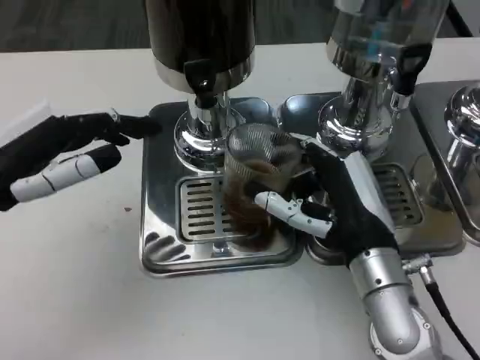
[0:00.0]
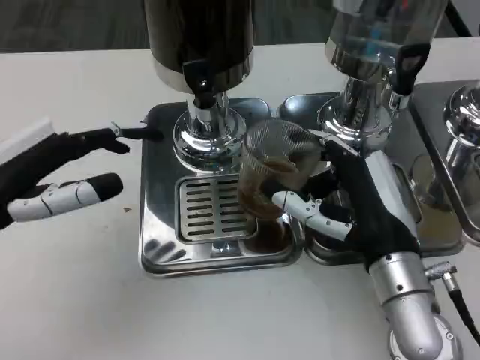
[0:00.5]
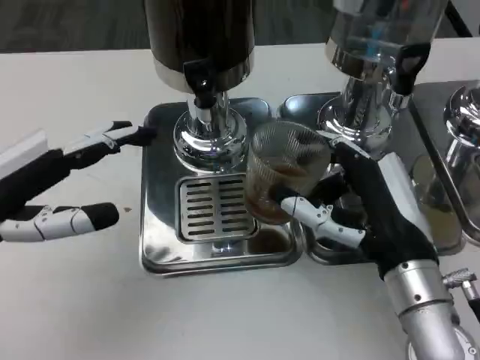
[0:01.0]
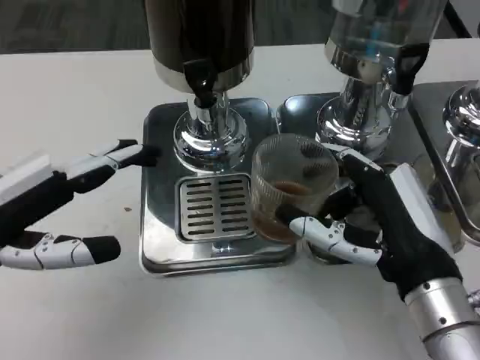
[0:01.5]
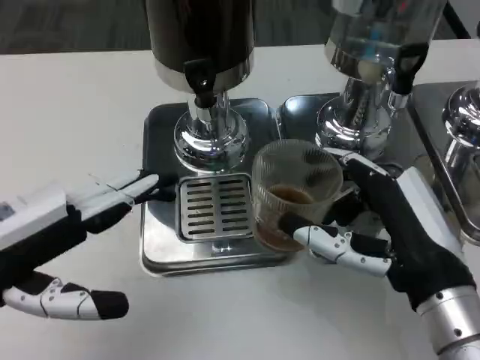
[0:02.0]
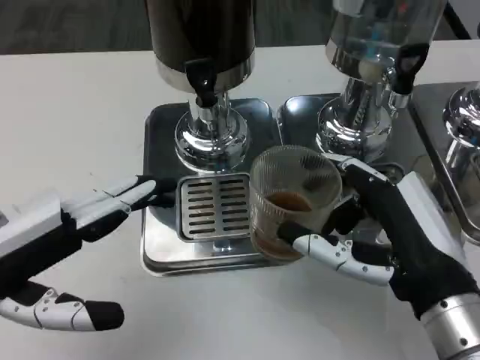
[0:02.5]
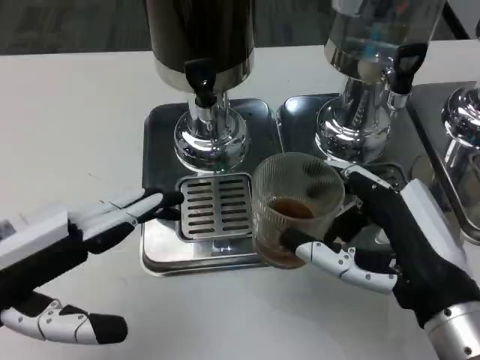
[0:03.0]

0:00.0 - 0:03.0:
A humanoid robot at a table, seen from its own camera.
Task of the whole recording: Grasp the cup under the faucet to collect the drink, then remove the cup.
0:00.0 - 0:01.5: The right hand moves backward, some 5 cm.

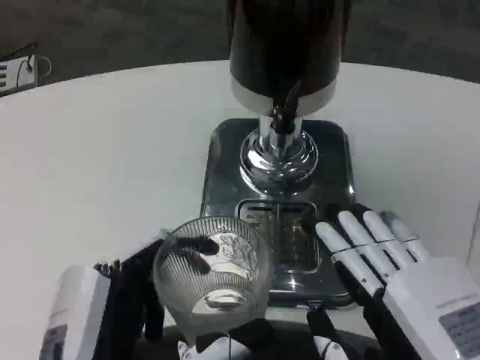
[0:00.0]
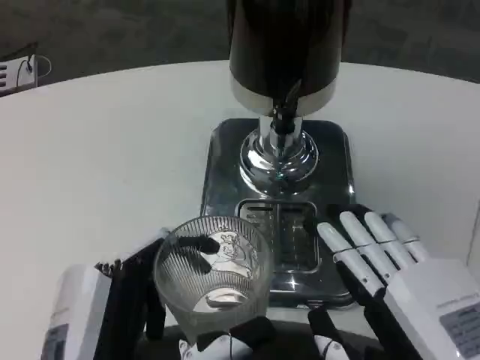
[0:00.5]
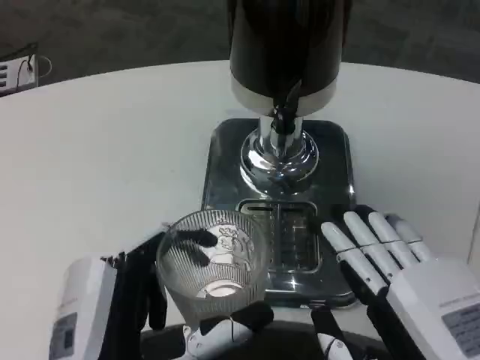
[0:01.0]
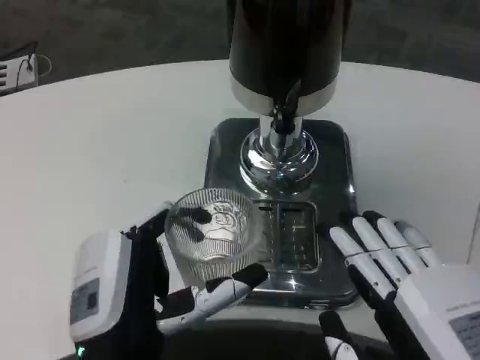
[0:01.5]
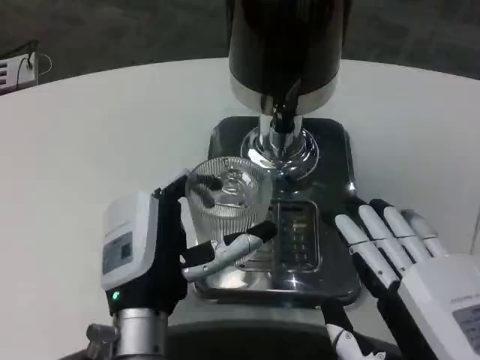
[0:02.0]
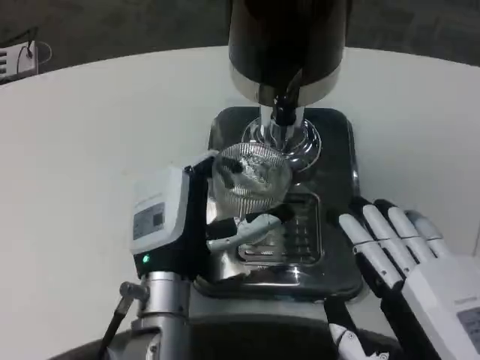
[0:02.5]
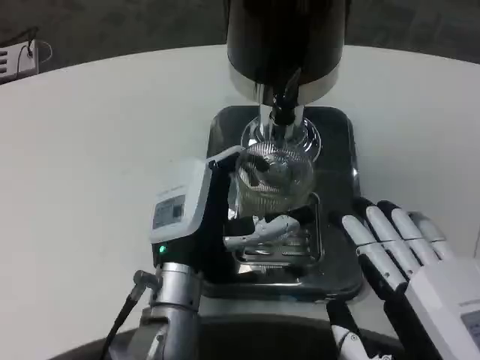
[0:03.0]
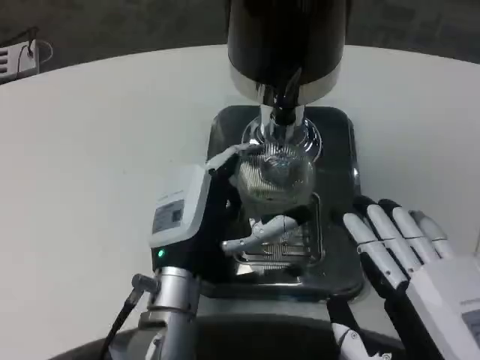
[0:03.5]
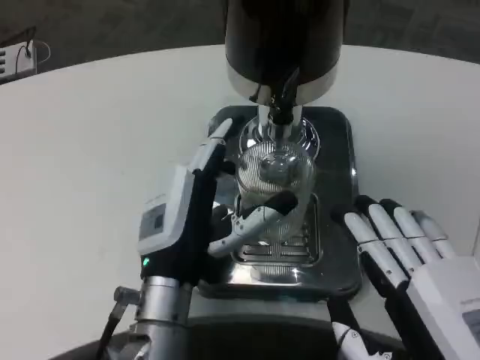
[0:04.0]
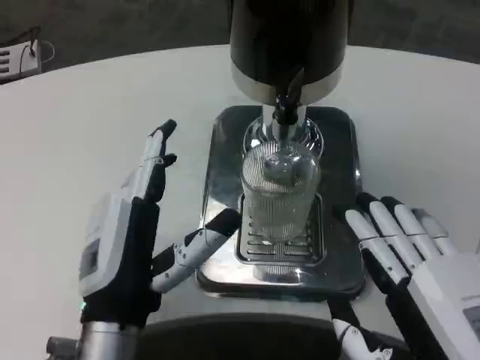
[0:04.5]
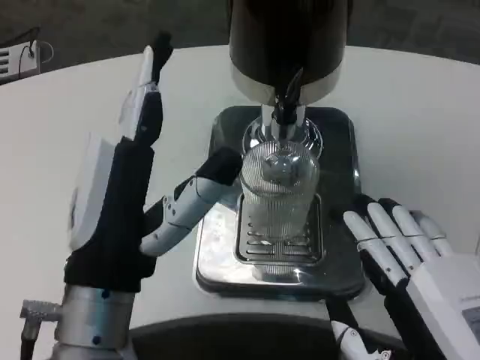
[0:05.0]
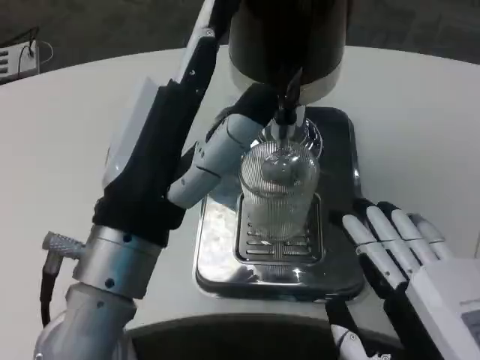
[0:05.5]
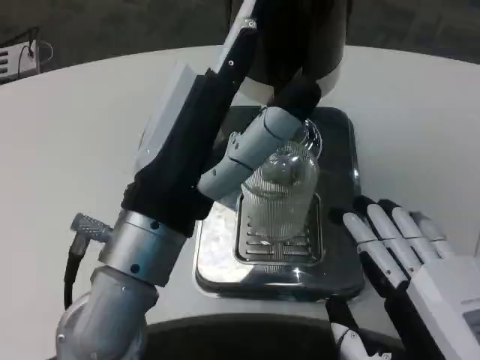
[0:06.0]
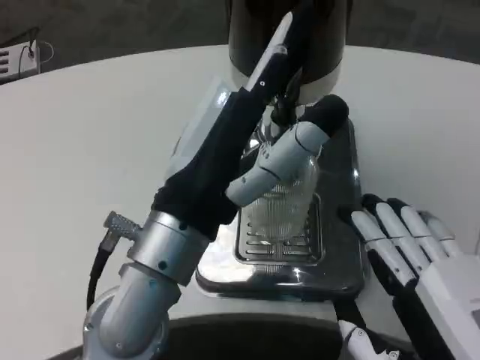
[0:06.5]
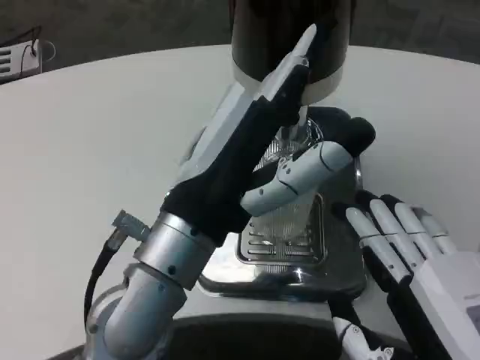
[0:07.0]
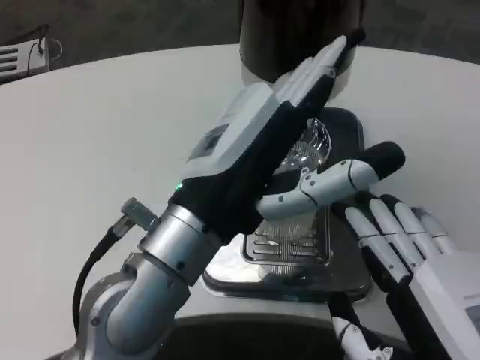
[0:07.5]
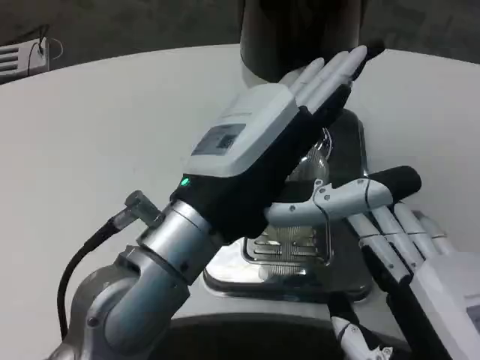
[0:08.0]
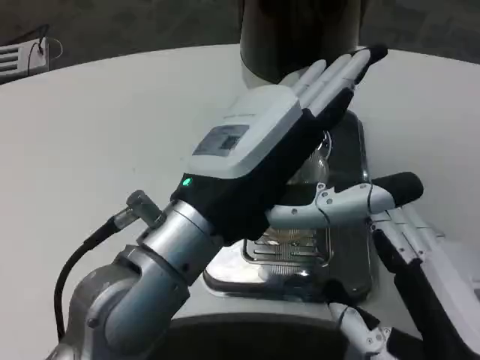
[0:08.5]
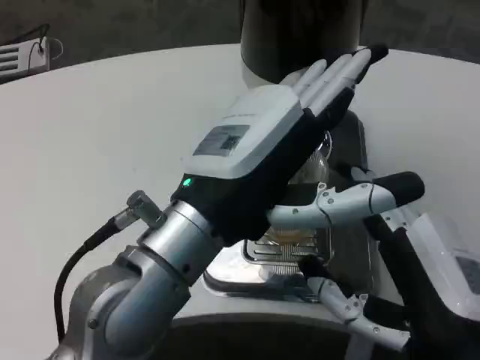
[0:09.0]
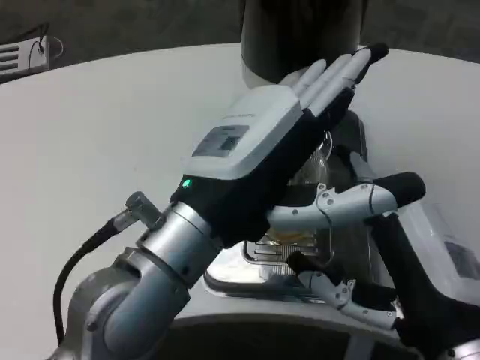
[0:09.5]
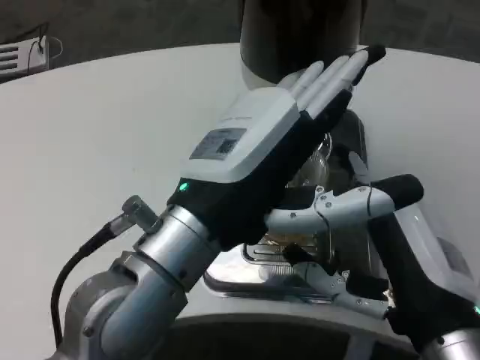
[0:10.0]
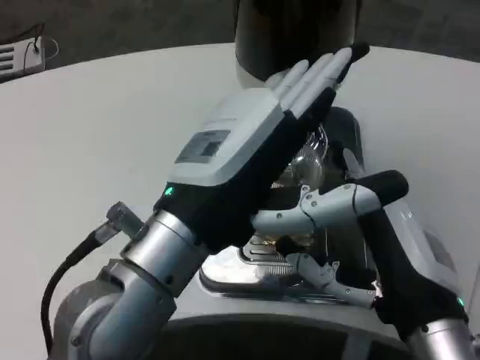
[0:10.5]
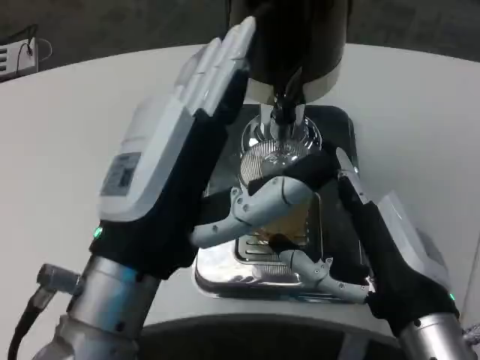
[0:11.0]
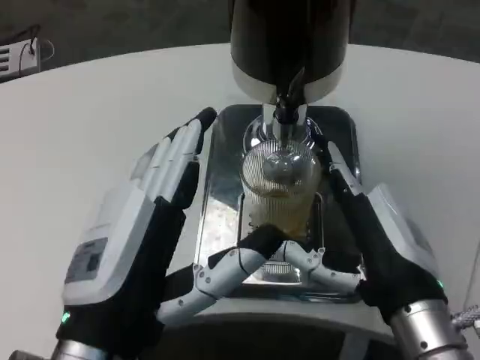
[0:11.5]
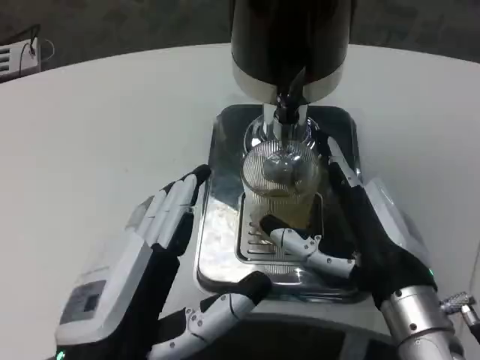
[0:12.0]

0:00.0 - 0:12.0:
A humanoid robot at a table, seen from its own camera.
Task of the whole recording: Grasp the cup under the faucet to collect the drink, then remove the cup.
0:00.0 - 0:02.0: The left hand moves forward, some 10 cm.
0:04.0 - 0:06.0: The left hand is displaced upward and backward by some 15 cm.
0:08.0 - 0:10.0: The right hand shifts some 10 cm forward.
0:10.0 - 0:12.0: The left hand travels downward, backward and to the left by roughly 15 cm. The right hand moves forward, roughly 5 cm.

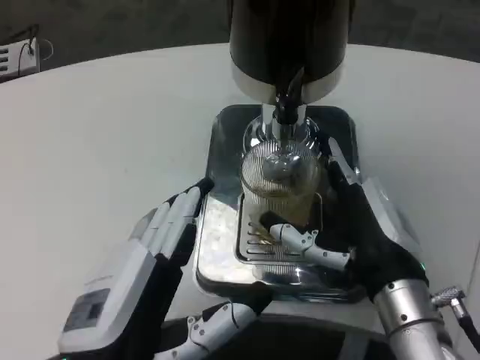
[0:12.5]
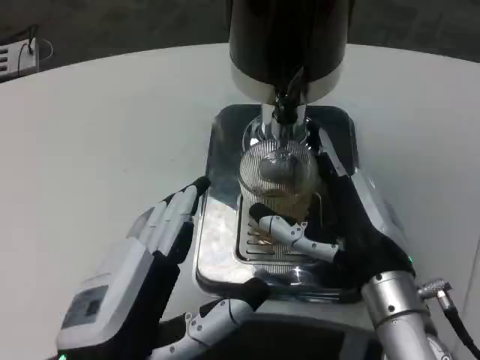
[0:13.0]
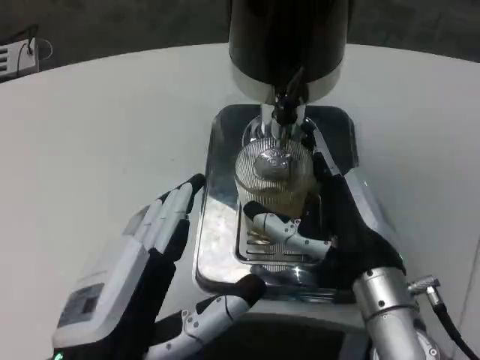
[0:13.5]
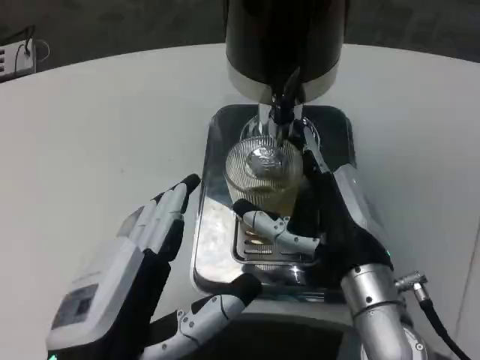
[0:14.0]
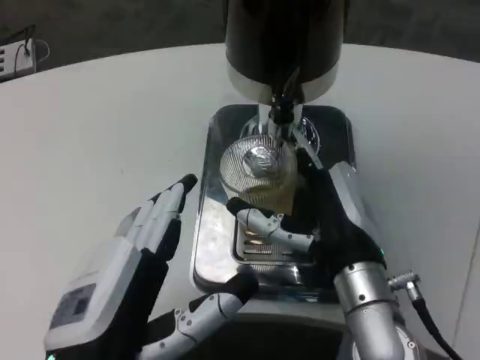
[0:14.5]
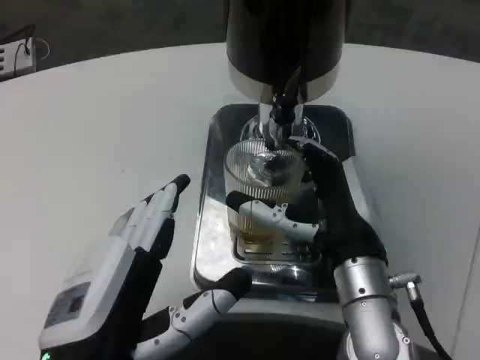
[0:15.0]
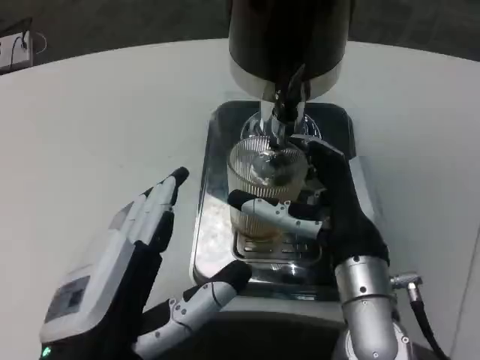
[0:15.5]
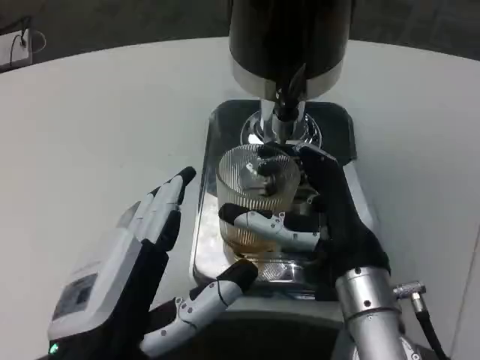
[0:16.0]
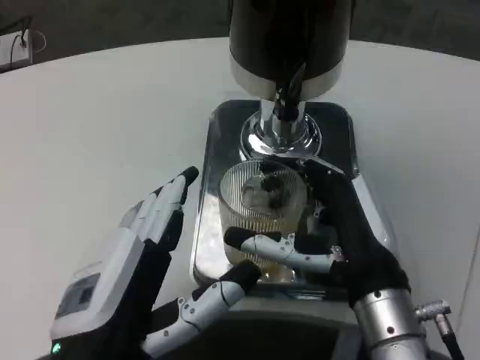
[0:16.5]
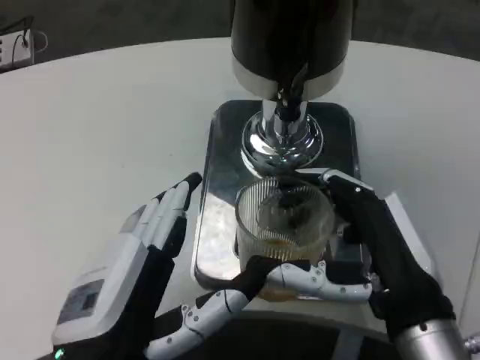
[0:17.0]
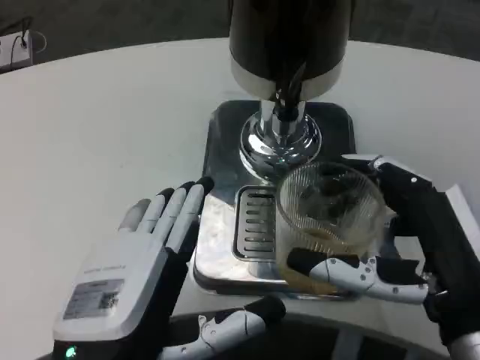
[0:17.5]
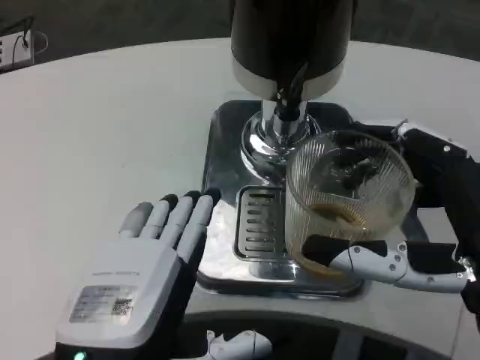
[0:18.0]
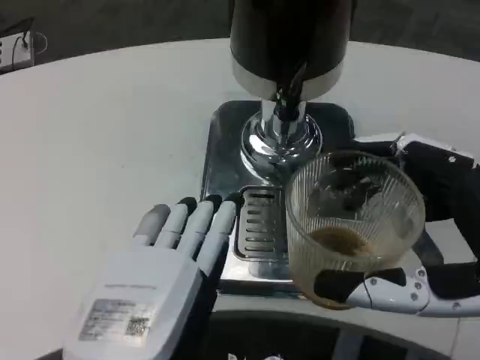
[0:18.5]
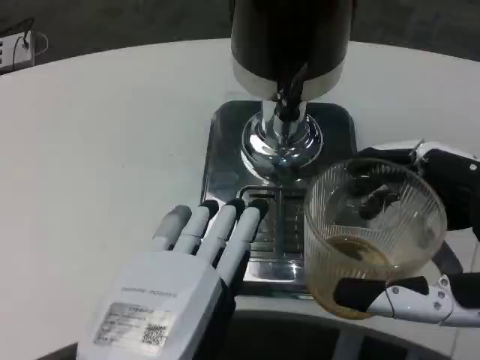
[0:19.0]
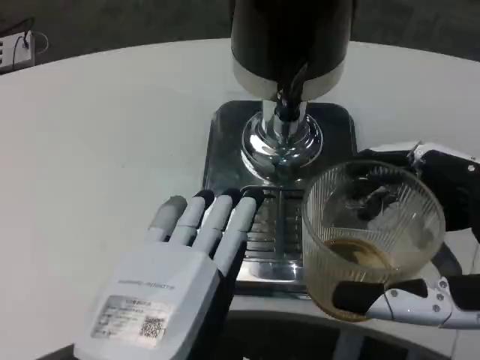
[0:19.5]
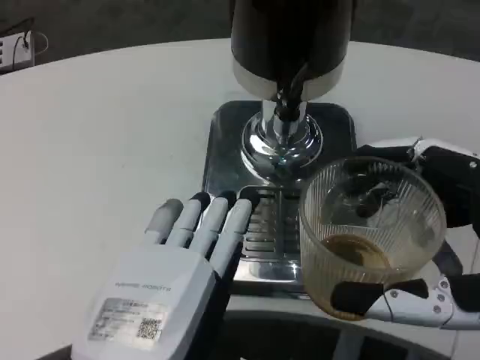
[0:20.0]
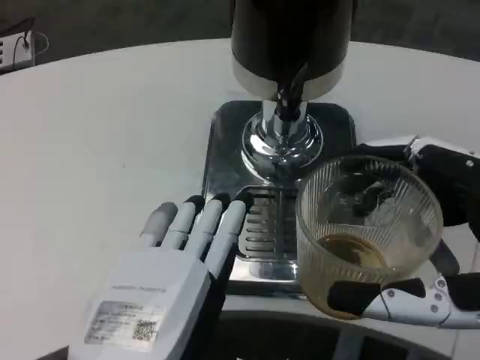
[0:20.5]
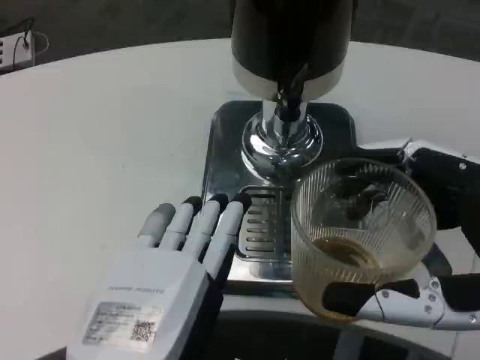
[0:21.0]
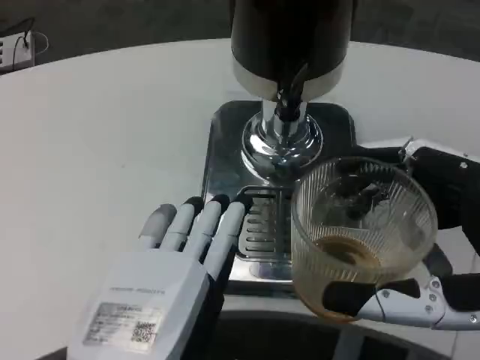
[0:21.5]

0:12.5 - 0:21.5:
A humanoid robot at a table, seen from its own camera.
Task of the whole recording: Grasp the cup under the faucet to collect the drink, then remove the cup.
0:14.5 - 0:17.0: The right hand goes some 10 cm backward.
0:17.0 - 0:19.5: The left hand changes place by approximately 5 cm; the right hand travels backward, to the right and upward by about 10 cm.
0:19.5 - 0:21.5: Both hands stay put.

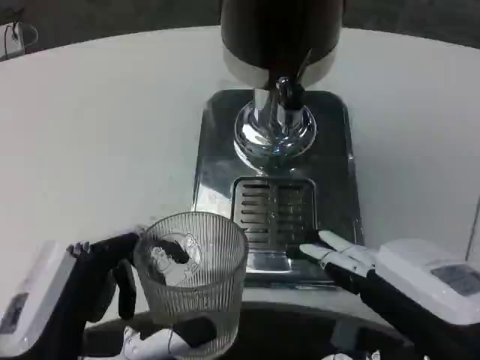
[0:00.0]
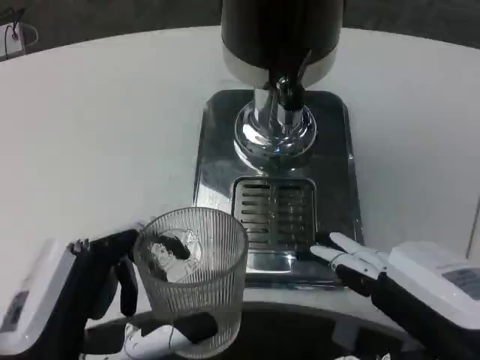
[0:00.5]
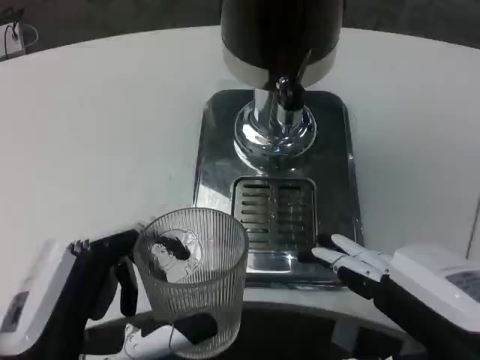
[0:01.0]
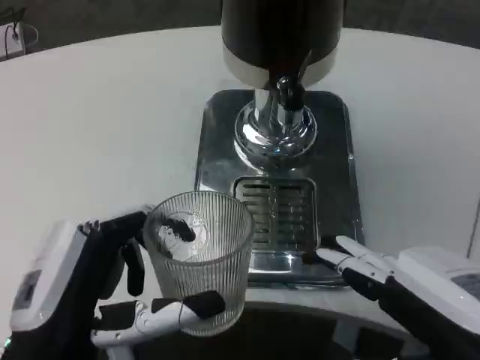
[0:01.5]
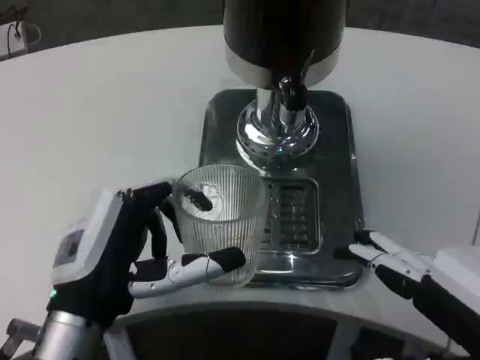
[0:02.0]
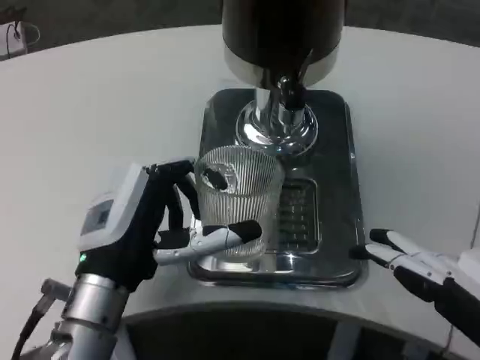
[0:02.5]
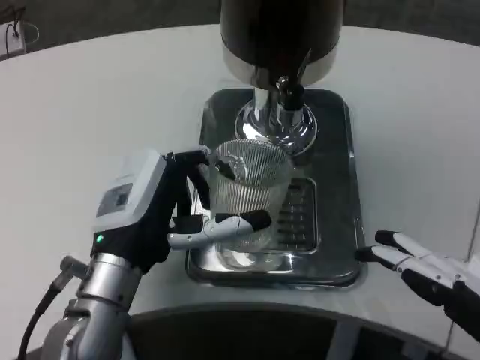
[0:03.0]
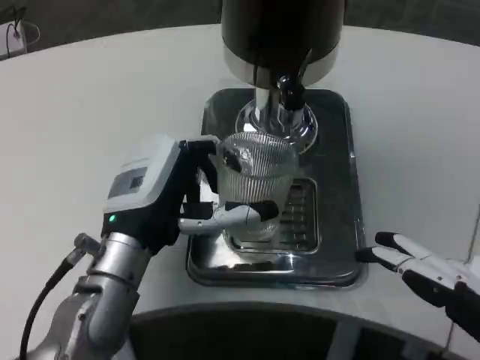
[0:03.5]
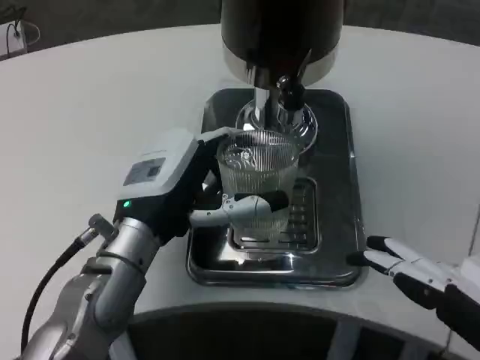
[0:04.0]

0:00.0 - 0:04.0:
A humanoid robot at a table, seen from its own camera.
Task of the whole recording: Grasp the cup under the faucet to collect the drink, then remove the cup.
0:00.0 - 0:02.0: The left hand moves forward, approximately 5 cm.
0:02.0 - 0:04.0: The left hand goes some 10 cm forward.
